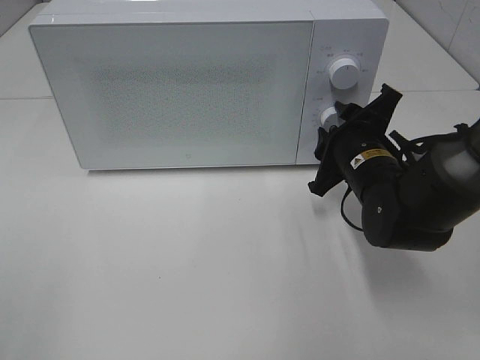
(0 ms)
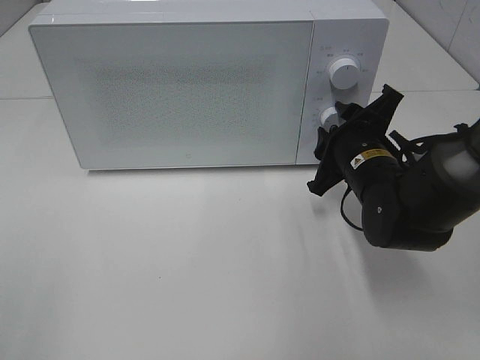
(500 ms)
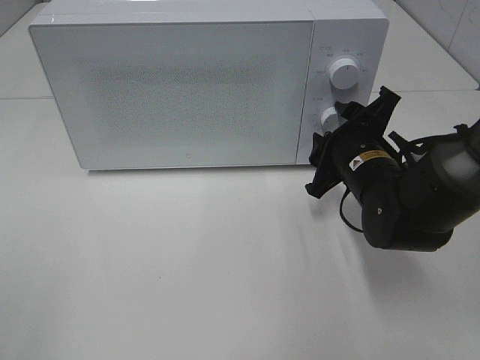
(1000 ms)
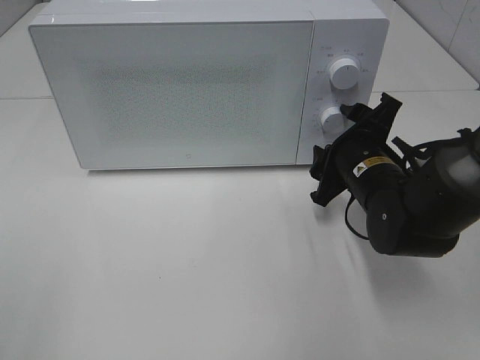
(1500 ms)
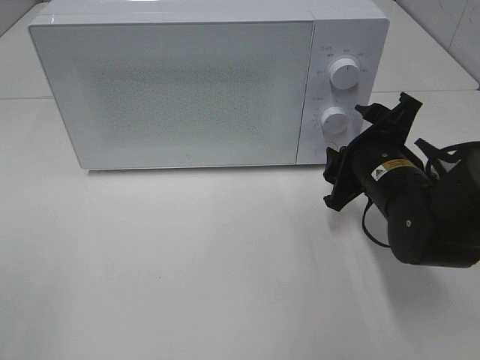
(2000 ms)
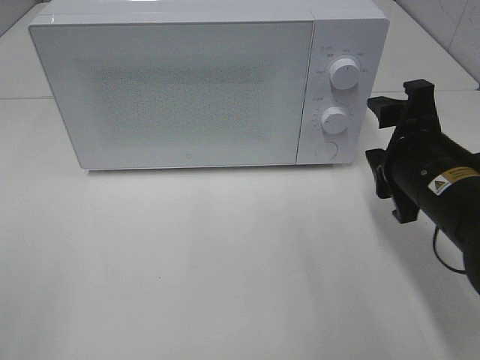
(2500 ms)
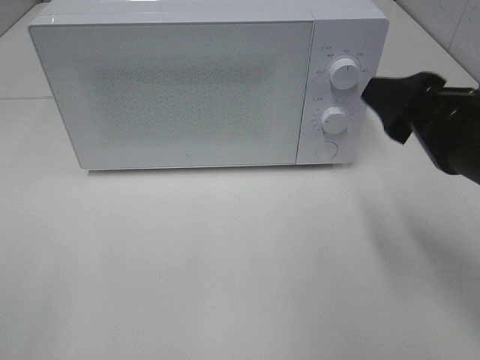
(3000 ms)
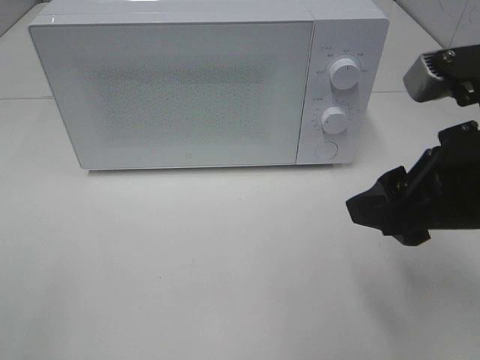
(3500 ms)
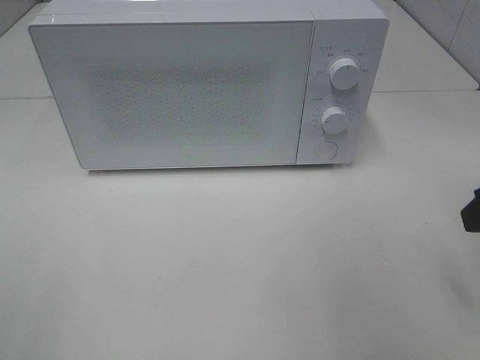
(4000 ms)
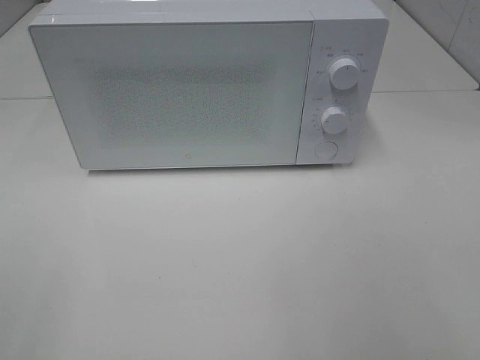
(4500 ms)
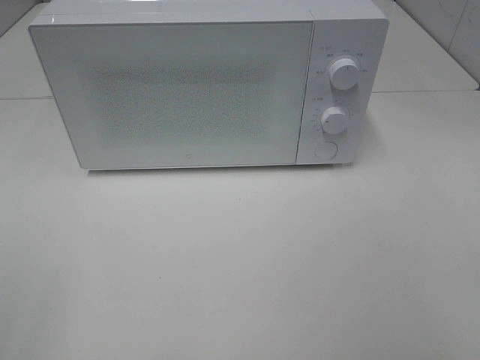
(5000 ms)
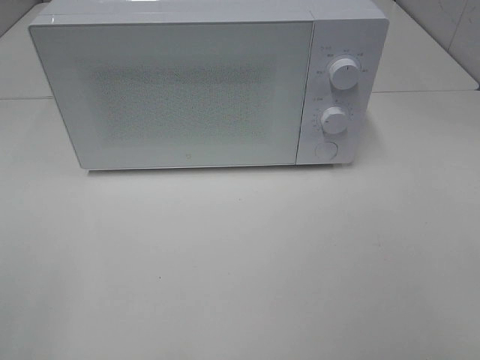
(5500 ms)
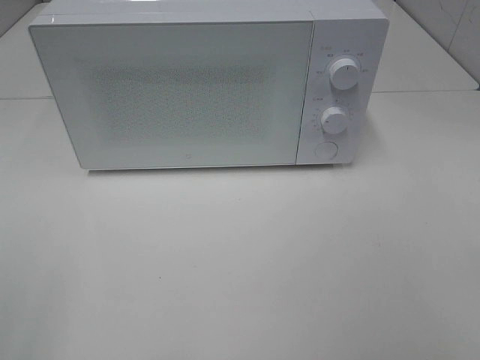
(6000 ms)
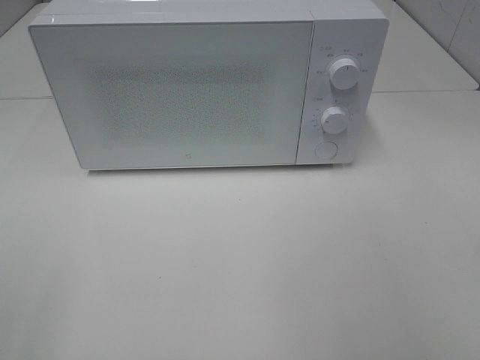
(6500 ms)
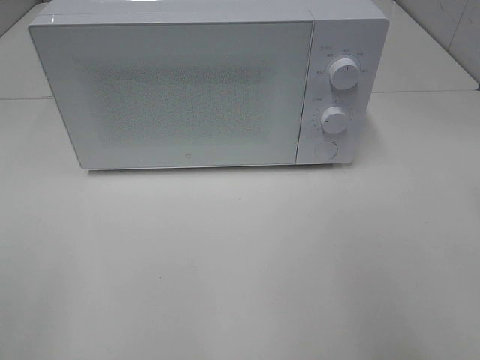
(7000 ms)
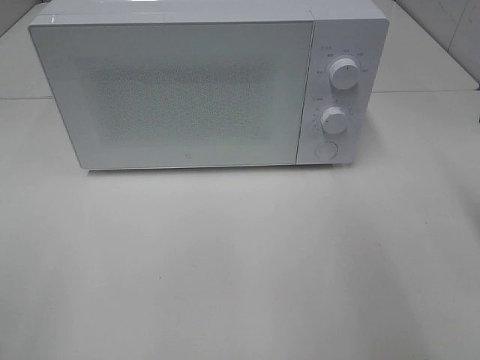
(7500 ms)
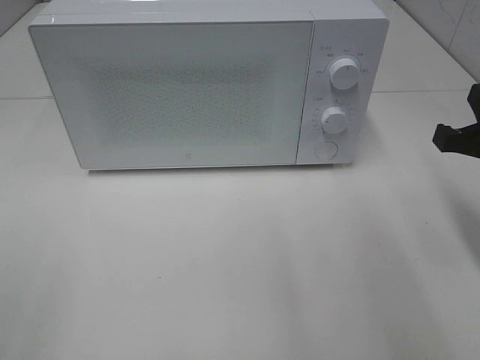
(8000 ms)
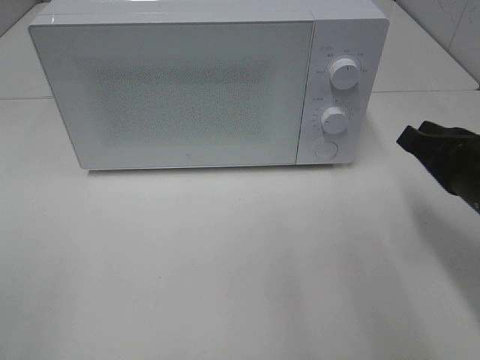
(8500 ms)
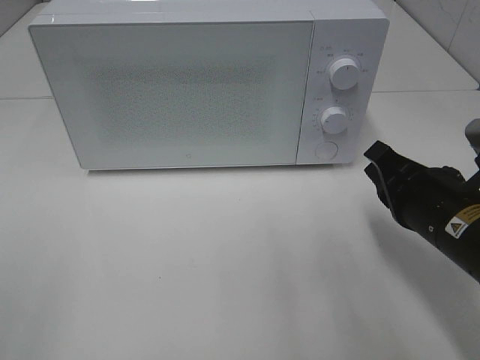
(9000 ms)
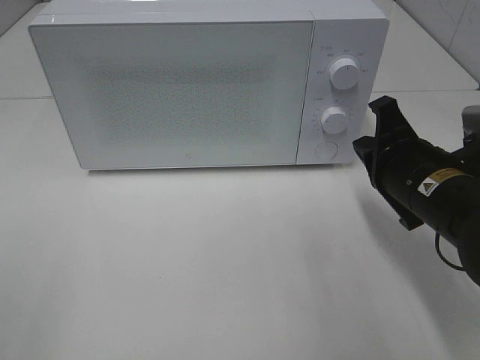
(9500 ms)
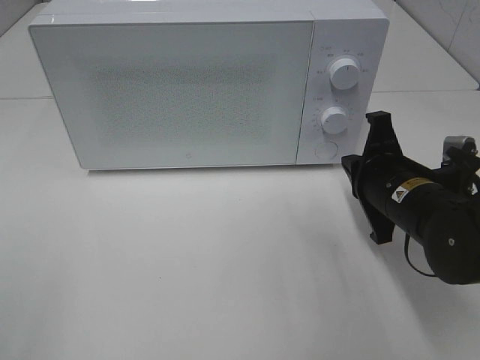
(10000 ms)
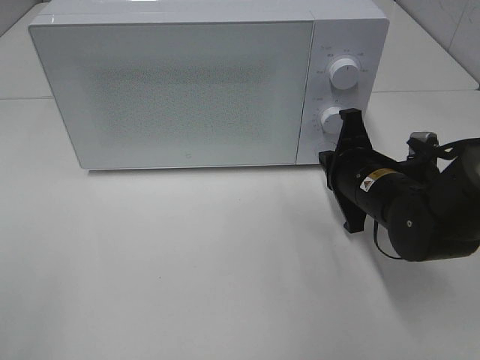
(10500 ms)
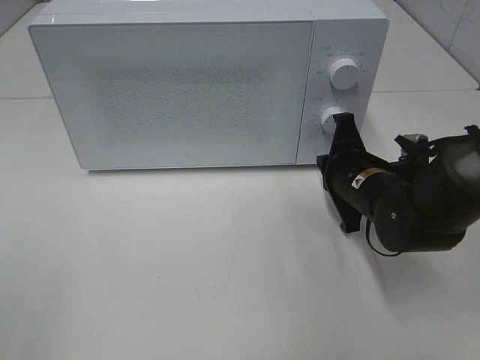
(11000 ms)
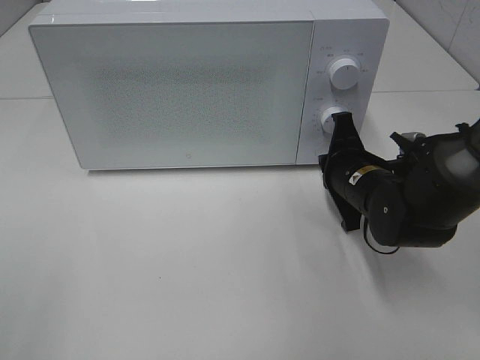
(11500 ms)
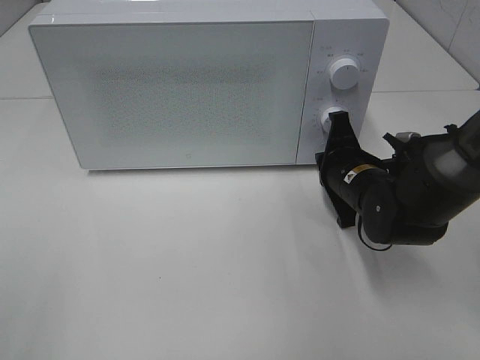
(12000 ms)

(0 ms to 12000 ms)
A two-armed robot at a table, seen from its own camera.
Task of the whole recording: Heat the burger.
Step, 0 ms - 2000 ms: Right hand: twist timer button.
0 ms - 2000 ms: The grippers make only small movements.
2000 ms - 4000 ms: The right gripper heads upward, backward and to the right, covering approximately 20 cm.
6000 ms - 8000 ms: The right gripper is displaced forward and downward by approximately 25 cm, and closes up.
8000 ms - 10000 ms: The right gripper travels to the left and downward by some 10 cm.
10000 ms - 12000 ms: The right gripper goes roughly 5 cm forward.

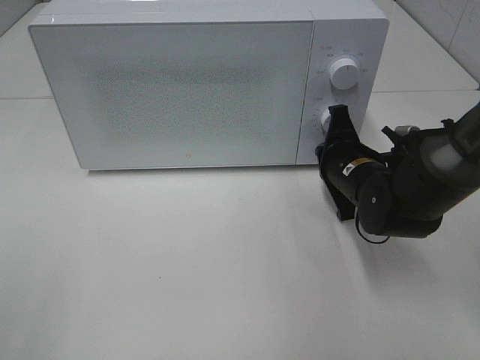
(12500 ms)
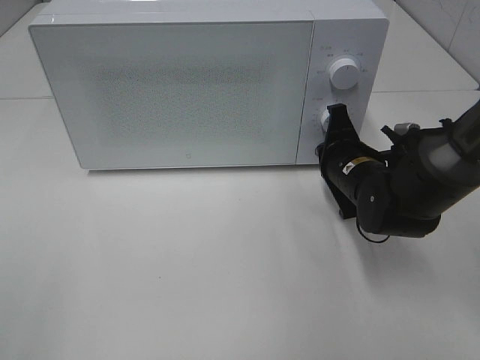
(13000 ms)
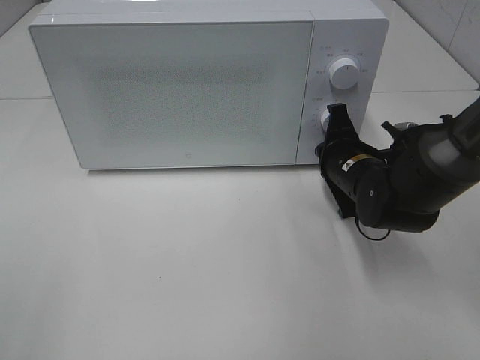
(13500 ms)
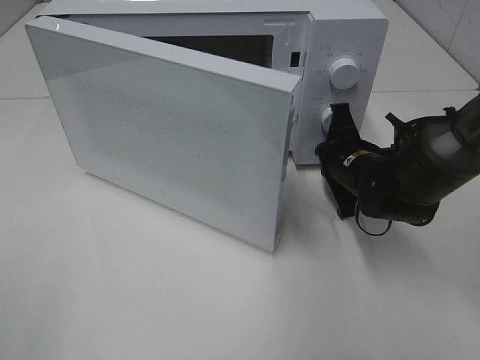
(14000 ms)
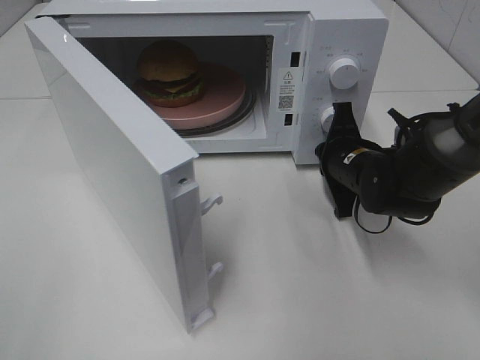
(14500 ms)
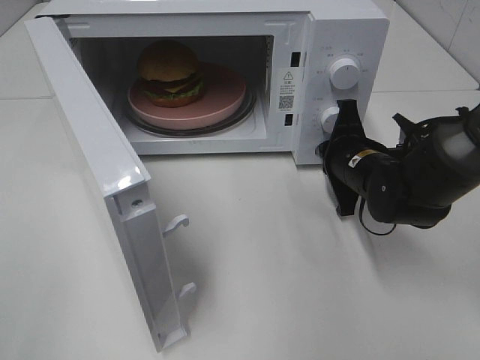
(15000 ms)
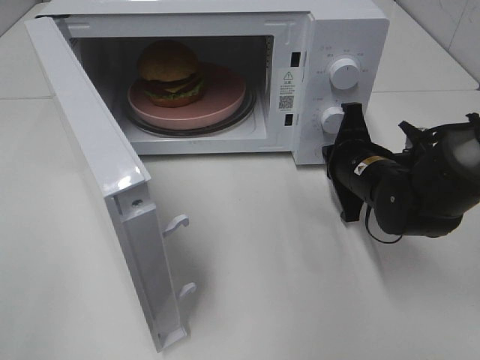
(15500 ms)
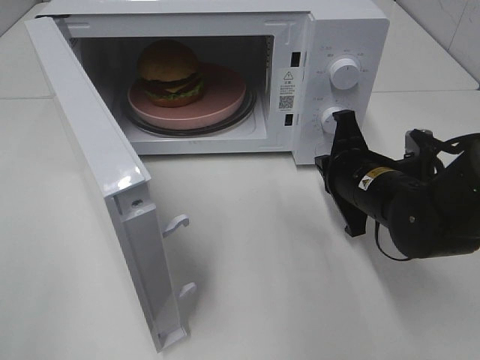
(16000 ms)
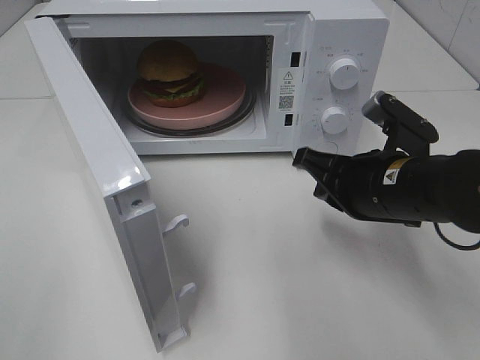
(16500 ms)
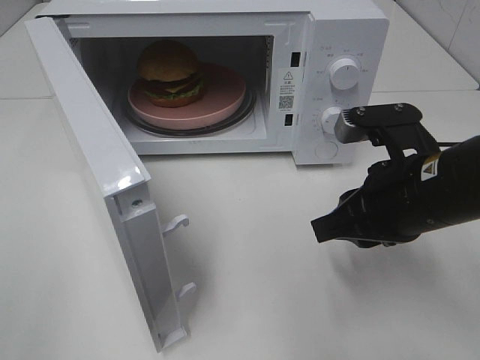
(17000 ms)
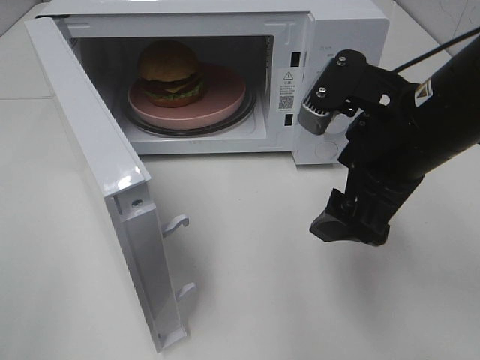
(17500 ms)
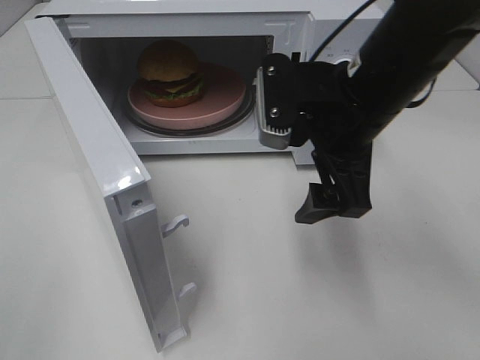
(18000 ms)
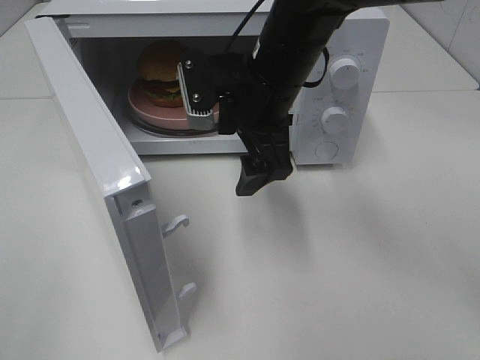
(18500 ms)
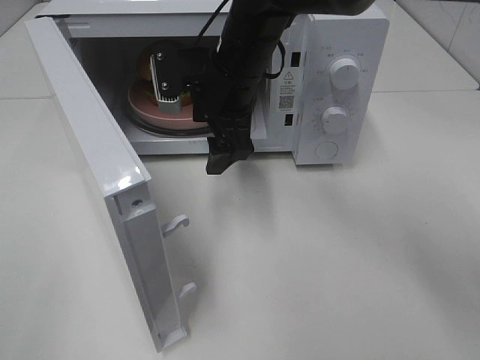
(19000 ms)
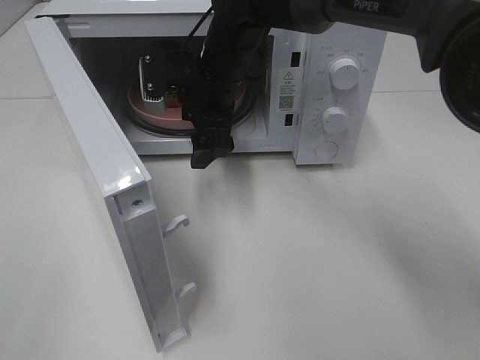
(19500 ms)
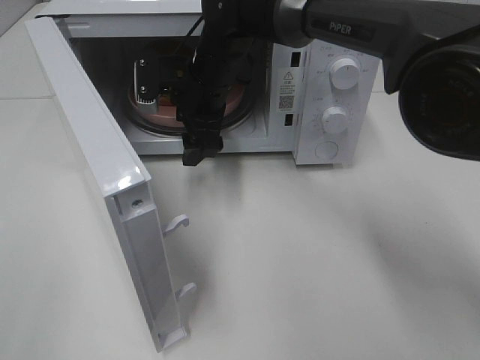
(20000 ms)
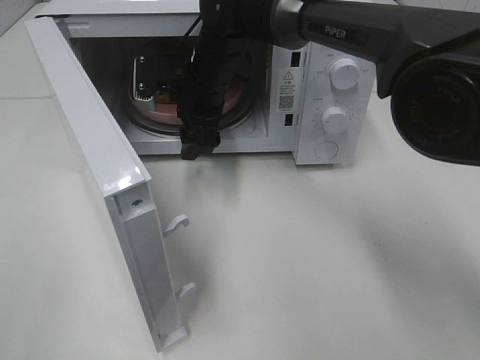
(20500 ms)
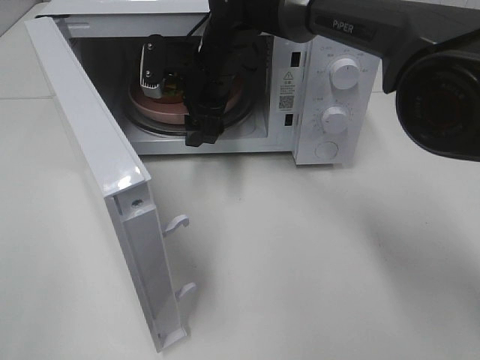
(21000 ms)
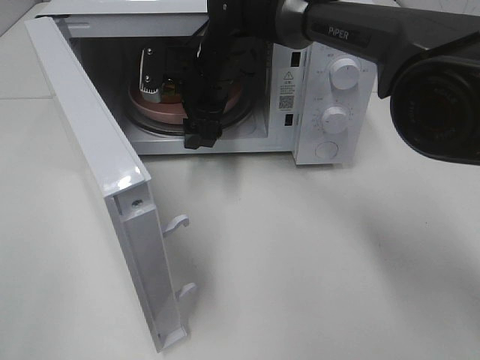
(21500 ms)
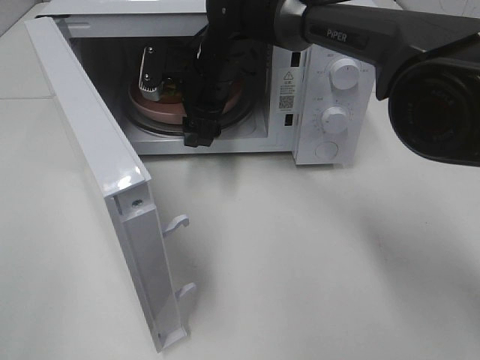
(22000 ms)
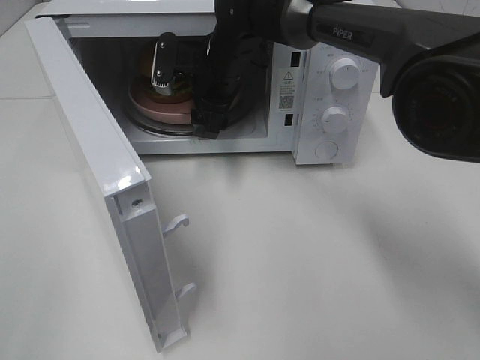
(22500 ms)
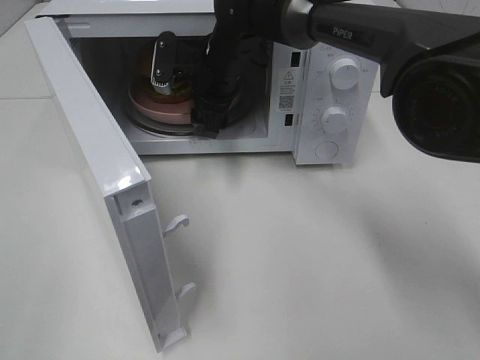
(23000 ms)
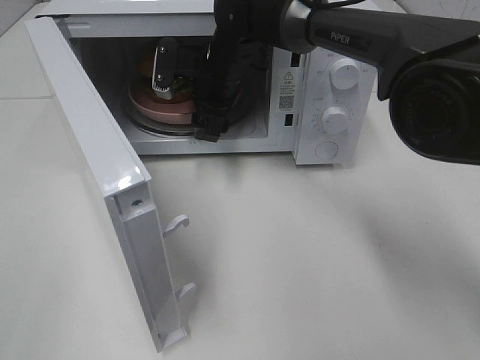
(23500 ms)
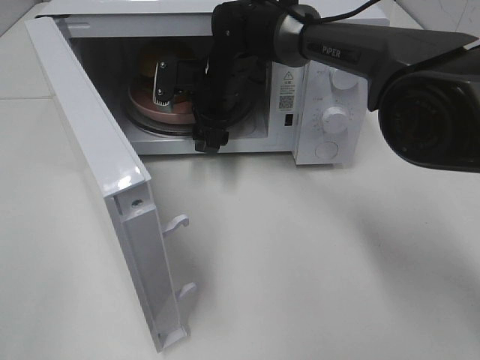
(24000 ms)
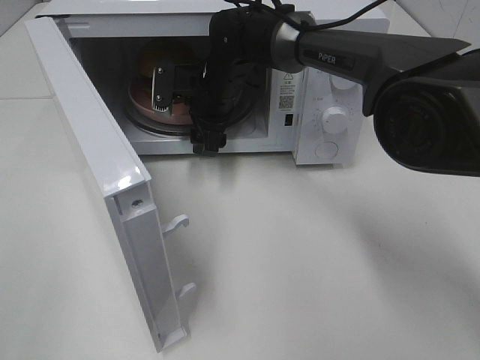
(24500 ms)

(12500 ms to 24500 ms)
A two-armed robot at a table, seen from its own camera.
Task of the whole recording: Heat the burger.
Step, 12500 ms - 15500 ms: Right hand: press the switch.
14500 ms - 16500 ms: The right gripper travels backward and upward by roughly 10 cm.
16500 ms - 18500 ms: The right gripper is displaced to the left, forward and upward by some 15 cm, and opens up.
18500 ms - 20500 ms: The right gripper heads forward and to the left, covering some 10 cm.
20500 ms - 24500 ms: There are only small adjustments of the grippers.

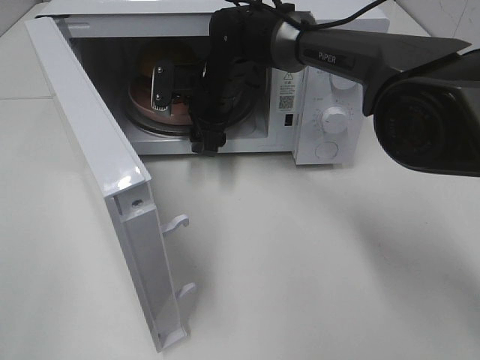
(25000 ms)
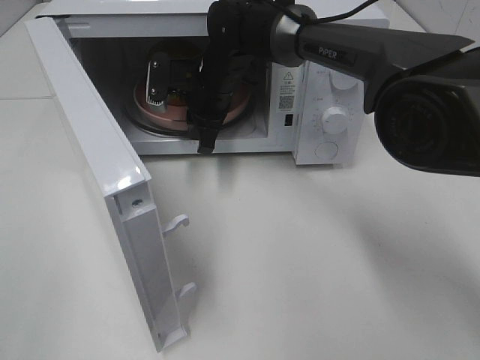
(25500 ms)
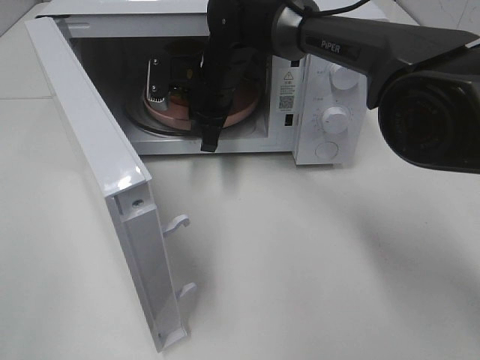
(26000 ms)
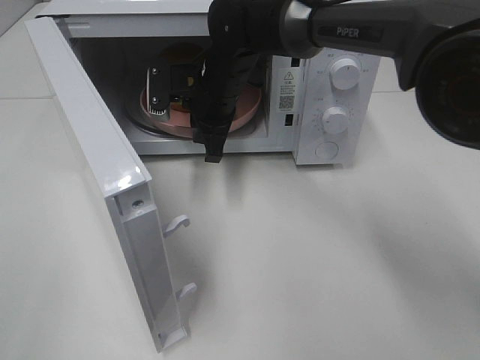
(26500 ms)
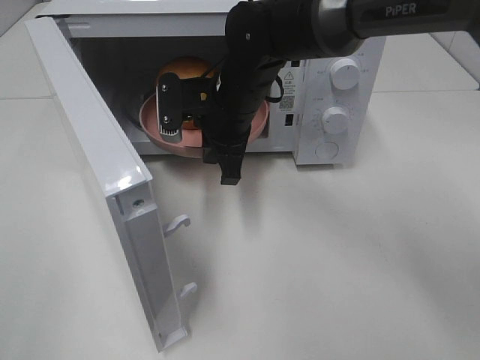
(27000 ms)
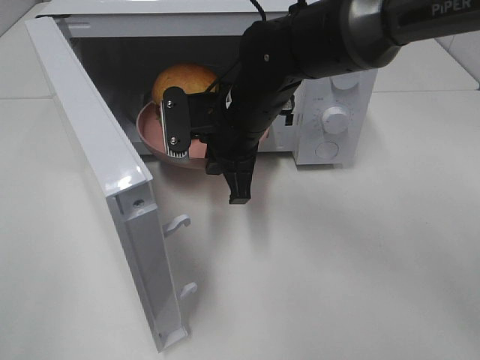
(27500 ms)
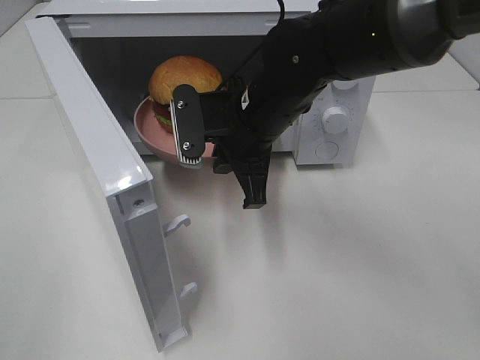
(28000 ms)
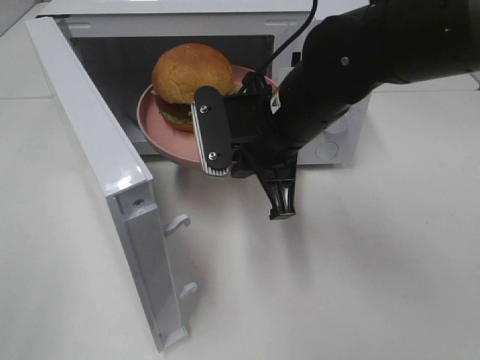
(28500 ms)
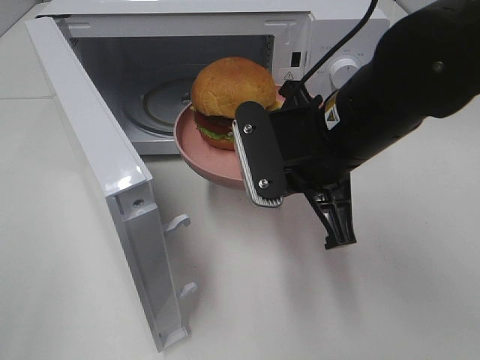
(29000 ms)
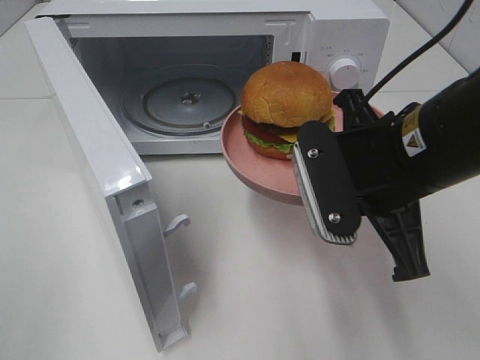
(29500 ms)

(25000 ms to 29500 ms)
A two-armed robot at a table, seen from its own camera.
Task of the whole recording: Heat the burger.
25000 ms - 27000 ms: The right gripper moves backward, some 10 cm, and closes up.
27000 ms - 29500 ms: The right gripper shifts approximately 20 cm backward and to the right.
